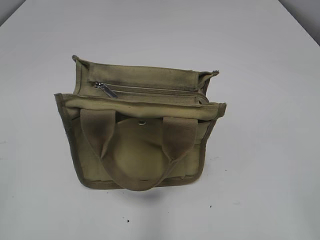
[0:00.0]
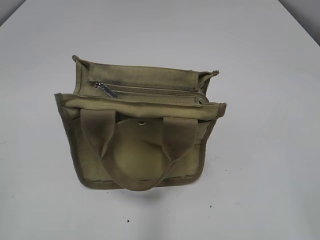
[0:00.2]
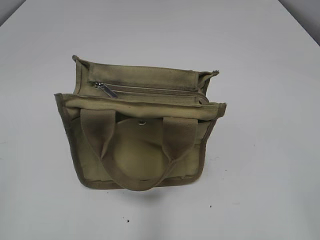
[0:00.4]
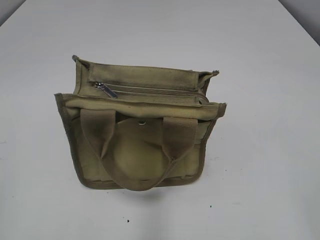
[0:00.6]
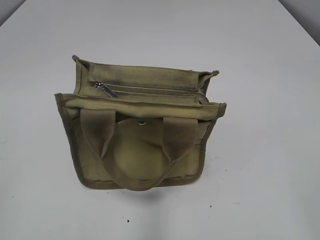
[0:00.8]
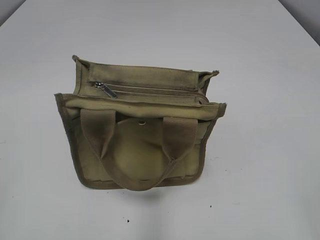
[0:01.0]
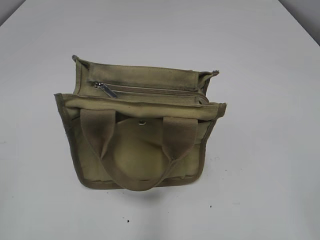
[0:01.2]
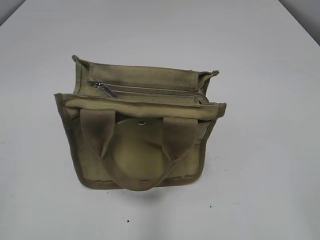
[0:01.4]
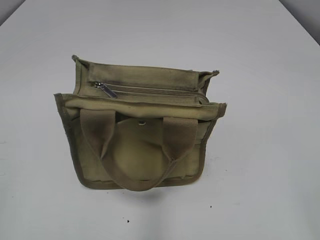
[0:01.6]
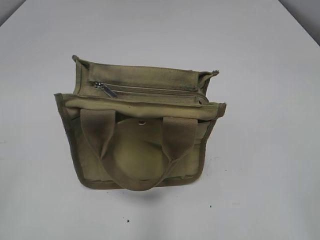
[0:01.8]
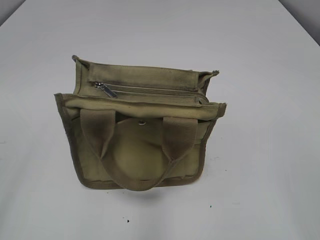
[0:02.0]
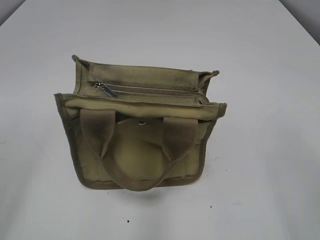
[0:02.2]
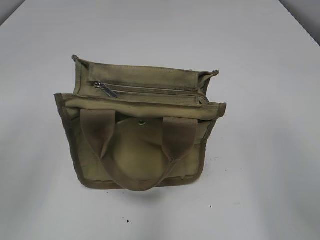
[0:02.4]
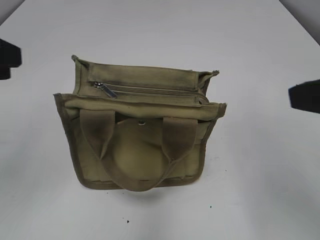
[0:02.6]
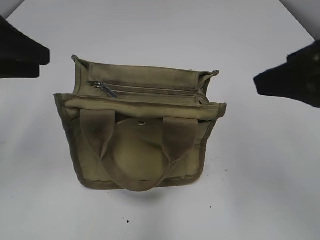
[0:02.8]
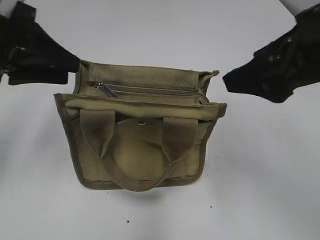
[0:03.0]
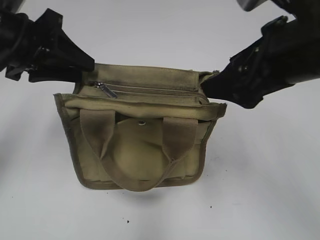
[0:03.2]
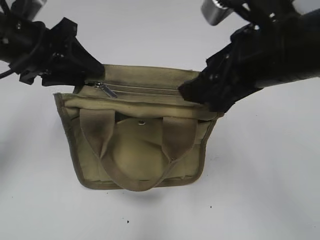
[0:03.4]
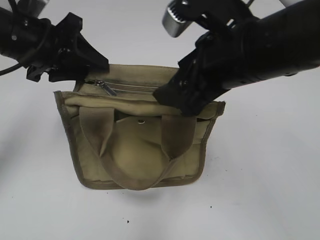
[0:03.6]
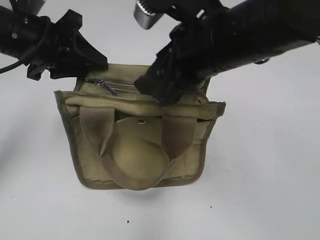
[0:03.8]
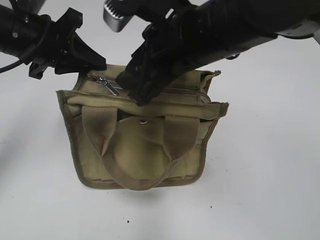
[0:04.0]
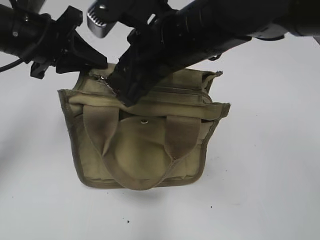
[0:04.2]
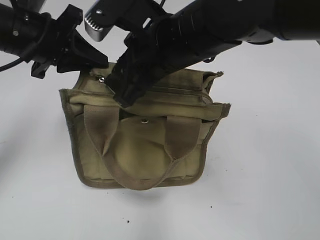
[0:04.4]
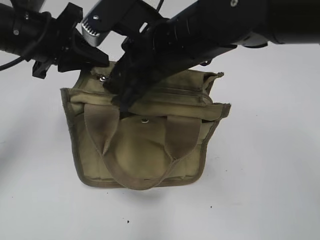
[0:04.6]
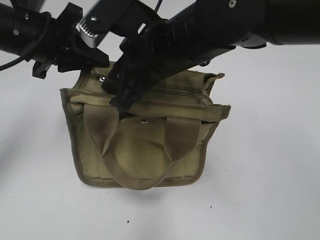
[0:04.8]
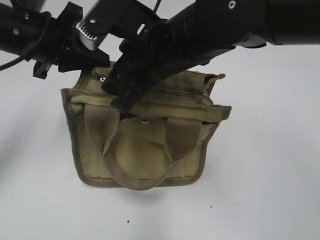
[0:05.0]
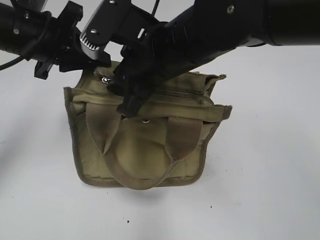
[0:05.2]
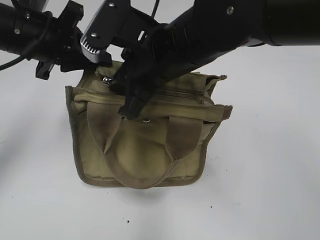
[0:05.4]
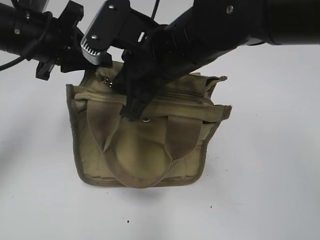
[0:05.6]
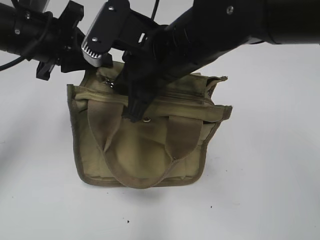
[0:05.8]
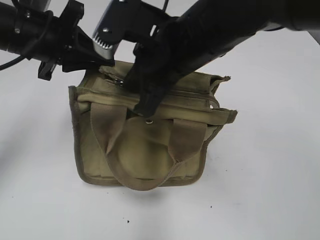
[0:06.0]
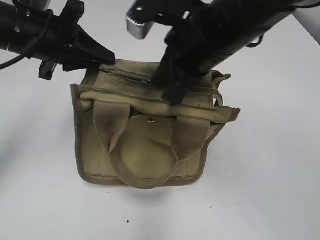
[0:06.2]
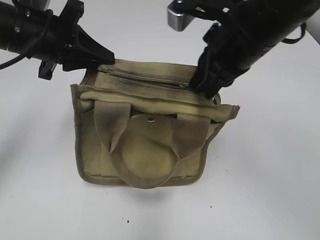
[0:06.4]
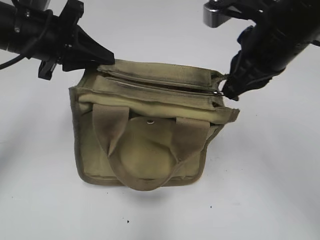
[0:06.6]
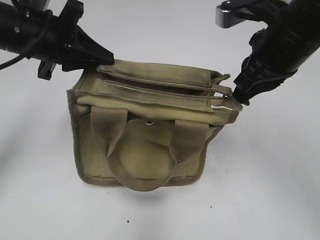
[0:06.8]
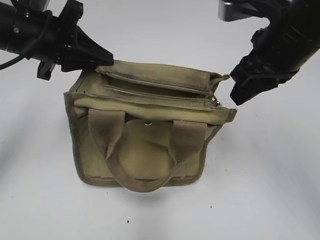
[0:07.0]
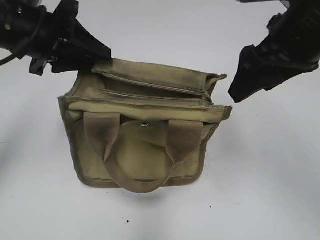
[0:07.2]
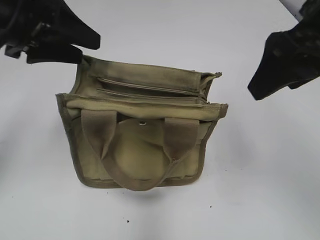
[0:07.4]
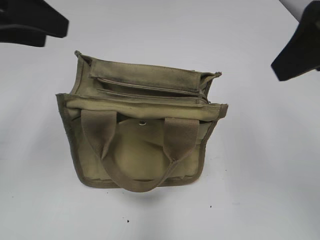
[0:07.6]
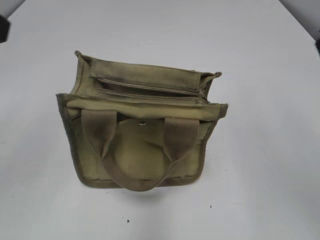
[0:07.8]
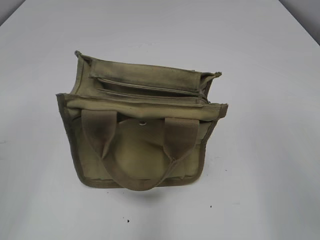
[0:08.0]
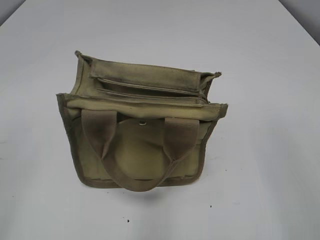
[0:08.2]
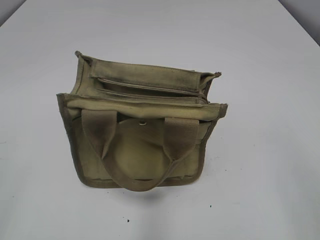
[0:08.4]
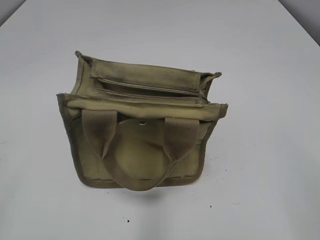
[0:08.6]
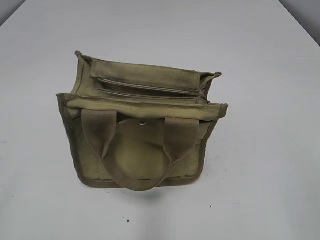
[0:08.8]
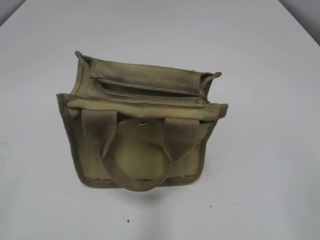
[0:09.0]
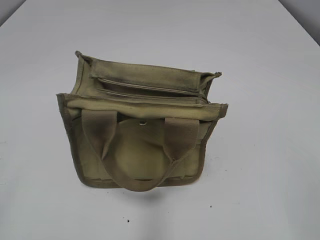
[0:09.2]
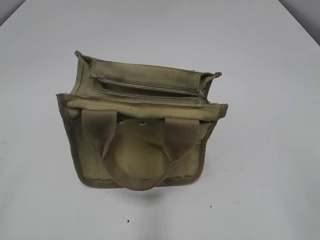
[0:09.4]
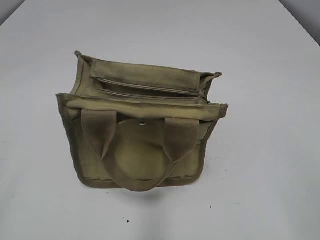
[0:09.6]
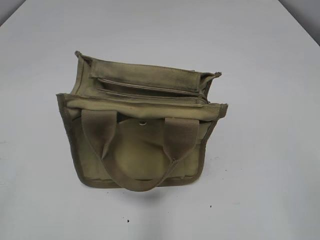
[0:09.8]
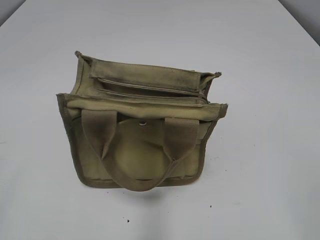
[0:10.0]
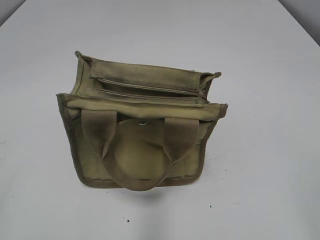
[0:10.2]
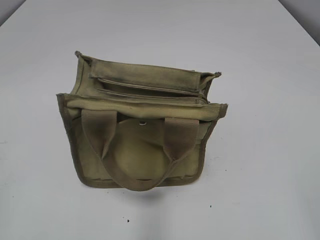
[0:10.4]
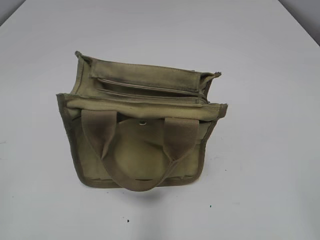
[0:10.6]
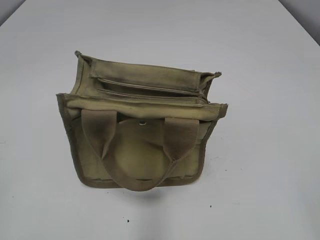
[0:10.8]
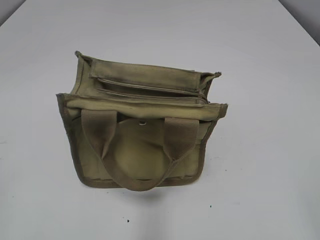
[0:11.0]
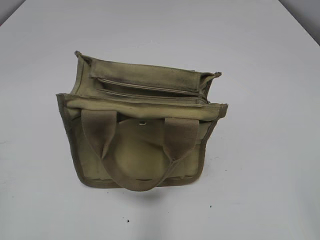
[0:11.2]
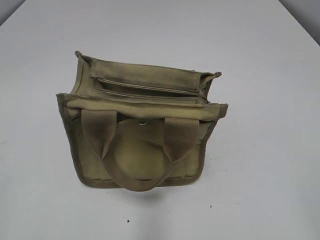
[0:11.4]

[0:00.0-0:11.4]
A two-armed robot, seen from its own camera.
Step, 0:00.0 to 0:06.8: Pull open the zipper with your right hand.
Step, 0:07.0 to 0:07.4: Hold the bag with your left hand.
0:01.4 to 0:02.8: The two grippers go approximately 20 cm forward.
0:02.8 to 0:04.2: The right gripper moves to the left and forward, about 20 cm, and closes; the left gripper shifts some 15 cm forward, to the right and downward, and closes its fingers.
0:04.2 to 0:05.6: The right gripper closes.
0:05.6 to 0:07.2: The right gripper goes roughly 15 cm to the right, and opens.
0:07.2 to 0:08.6: The left gripper heads backward and to the left, covering about 35 cm, and opens up, while the right gripper moves backward and to the right, some 25 cm.
